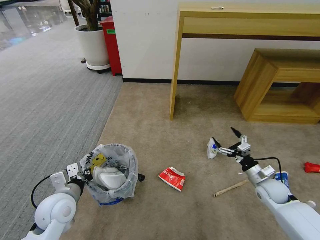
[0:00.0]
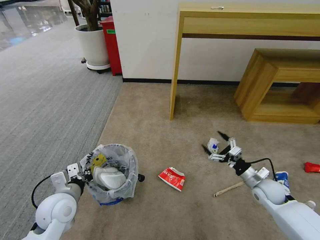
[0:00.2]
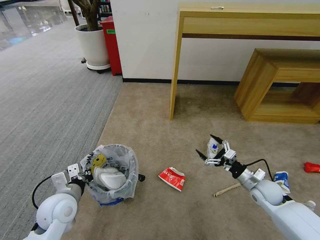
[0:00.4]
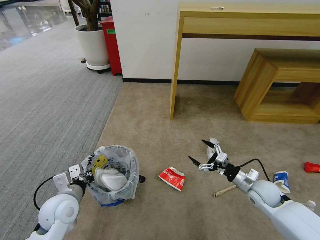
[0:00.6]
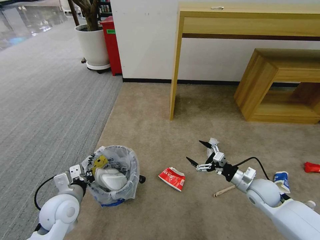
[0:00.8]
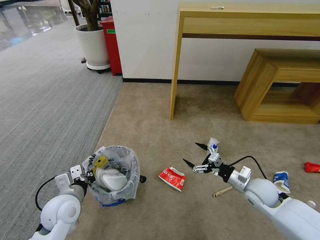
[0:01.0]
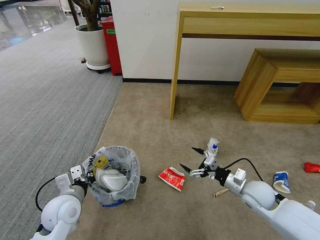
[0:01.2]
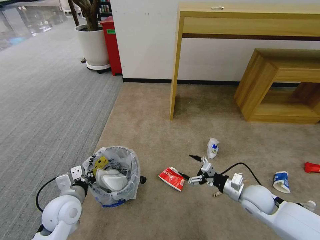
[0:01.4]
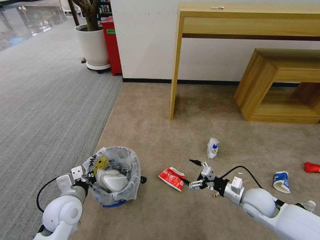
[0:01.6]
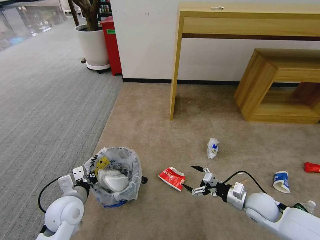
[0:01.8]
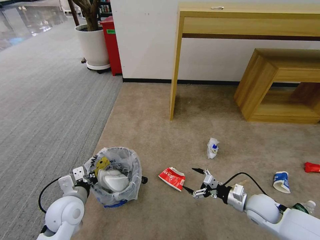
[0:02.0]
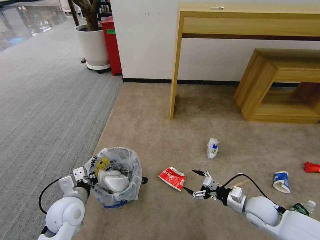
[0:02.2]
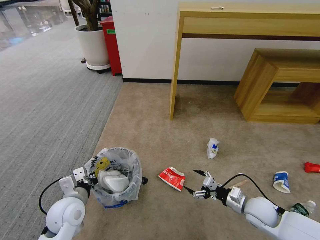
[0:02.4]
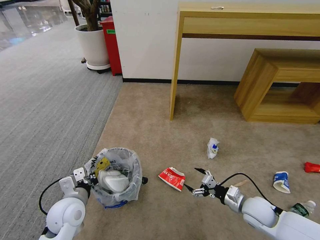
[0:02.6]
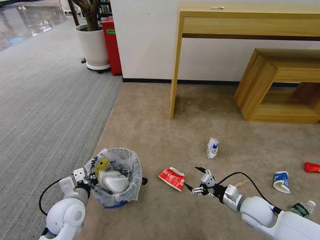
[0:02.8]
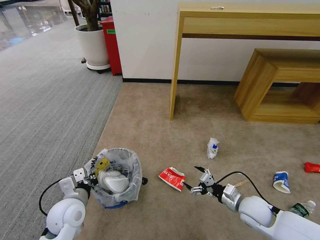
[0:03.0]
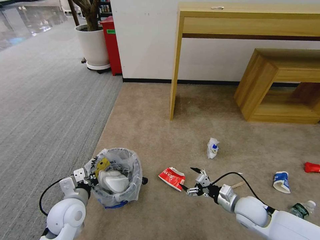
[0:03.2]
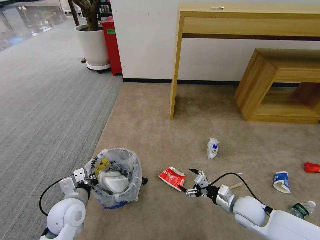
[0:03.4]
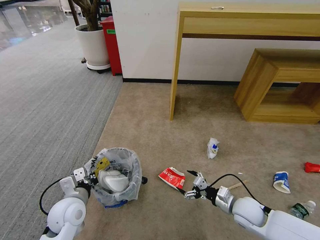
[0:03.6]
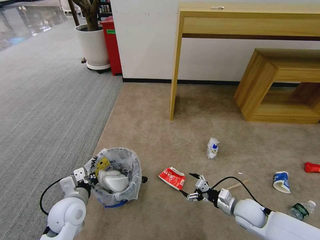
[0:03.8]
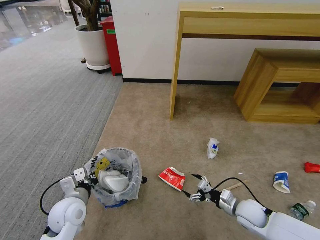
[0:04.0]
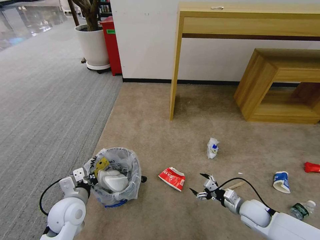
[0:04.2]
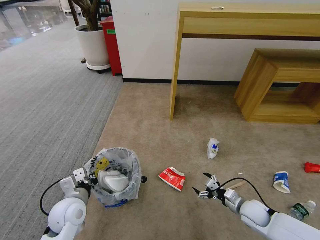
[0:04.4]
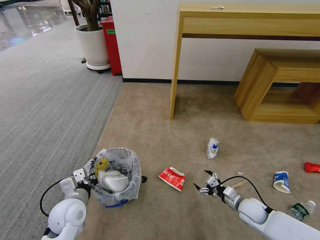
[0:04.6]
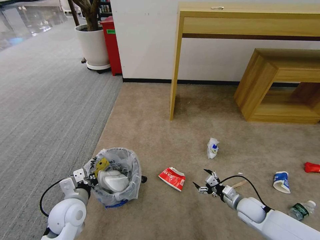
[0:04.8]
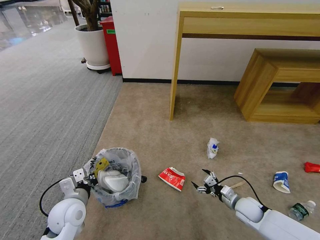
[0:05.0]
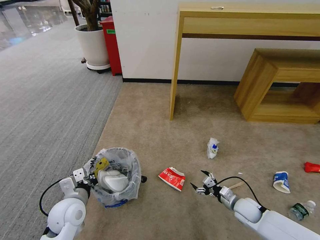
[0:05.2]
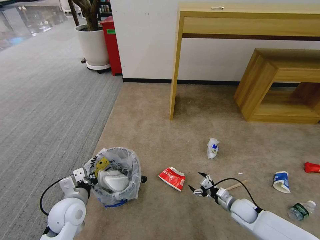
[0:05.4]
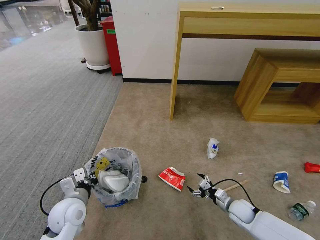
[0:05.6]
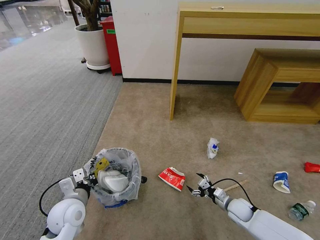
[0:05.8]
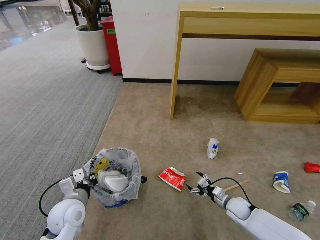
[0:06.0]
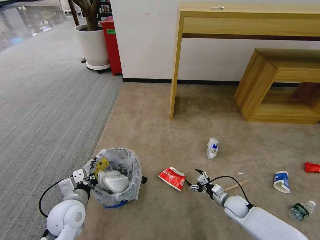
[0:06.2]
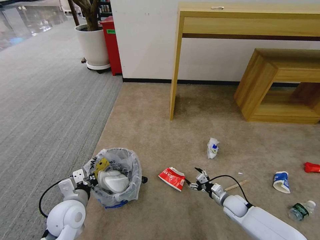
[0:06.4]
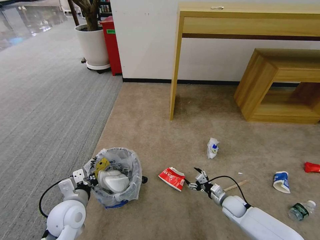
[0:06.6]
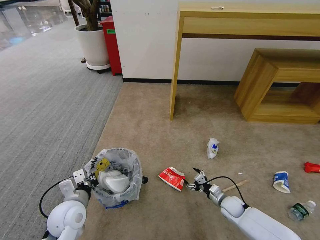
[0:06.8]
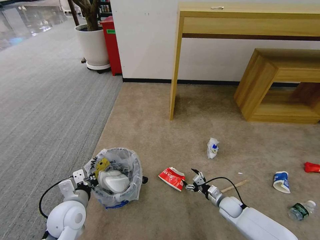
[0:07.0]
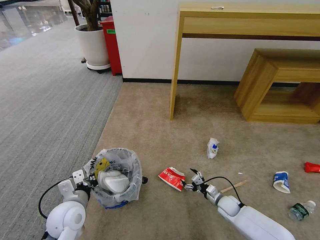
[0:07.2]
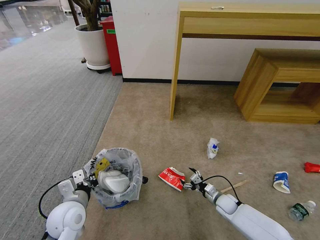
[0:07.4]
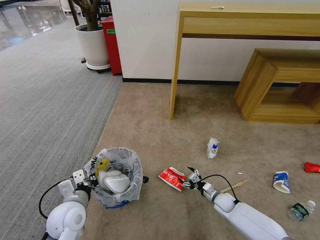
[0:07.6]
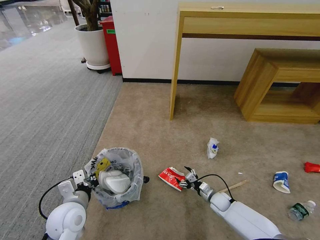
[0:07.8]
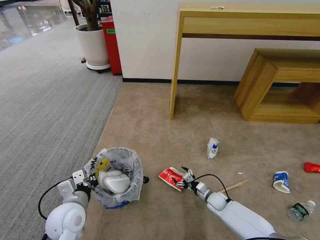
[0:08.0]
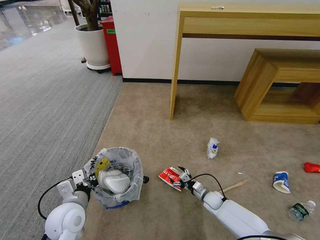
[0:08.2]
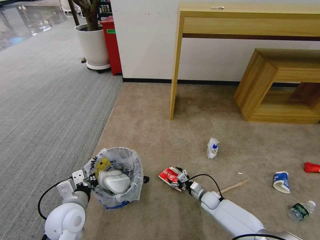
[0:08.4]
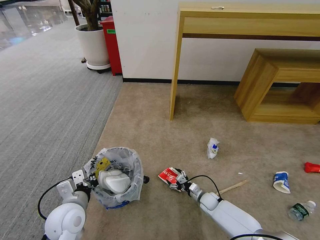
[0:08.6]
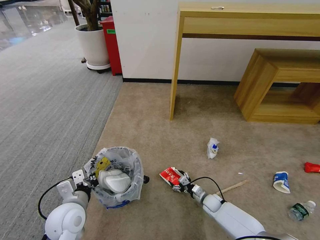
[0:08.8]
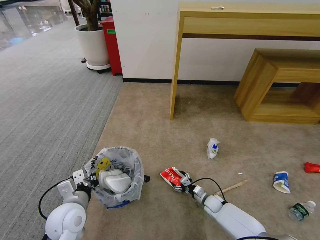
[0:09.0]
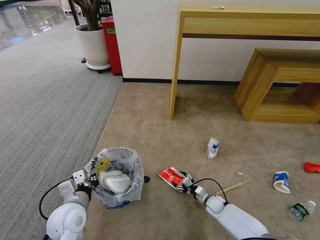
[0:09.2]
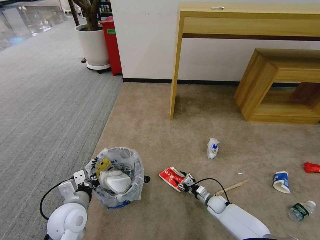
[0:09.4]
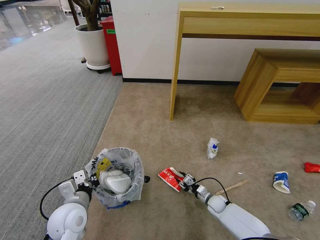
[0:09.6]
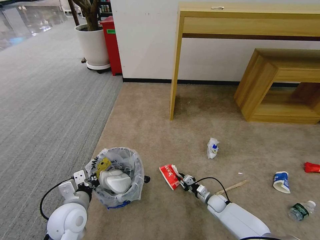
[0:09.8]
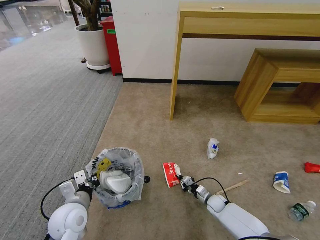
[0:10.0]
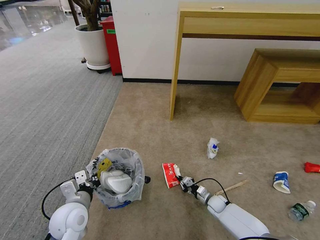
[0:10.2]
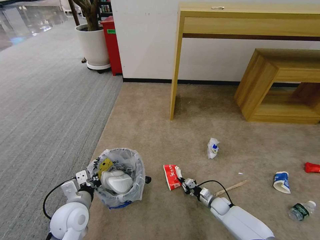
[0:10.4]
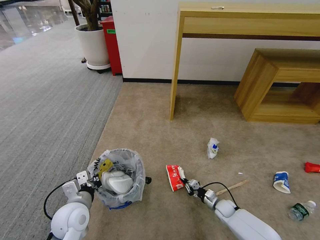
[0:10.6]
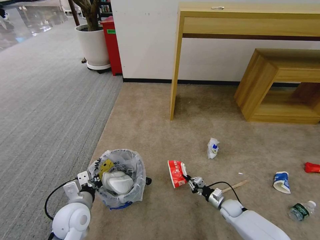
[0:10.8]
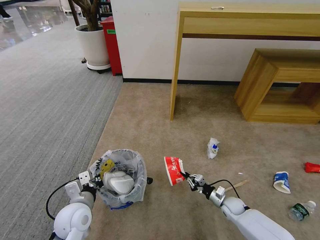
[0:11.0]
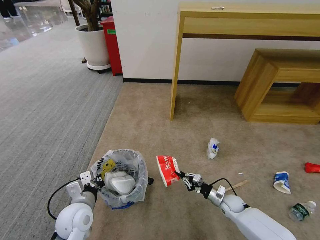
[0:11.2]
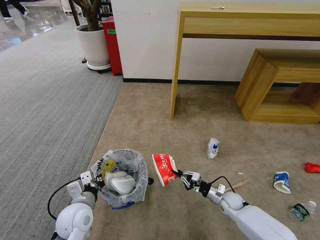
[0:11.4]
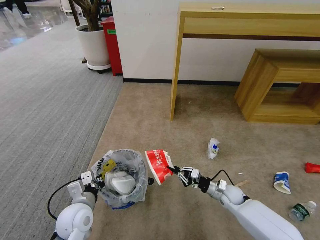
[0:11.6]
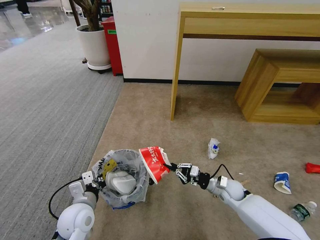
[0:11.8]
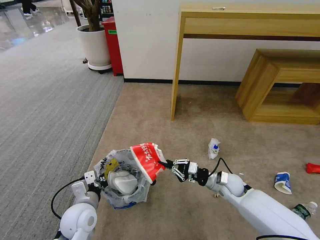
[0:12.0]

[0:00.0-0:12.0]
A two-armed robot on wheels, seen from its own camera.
Task of the whole recording: Pick up the trash bin and place the garbage on the floor into it.
0:00.0 to 0:01.6: The right gripper is displaced to the left and backward by some 10 cm.
0:01.6 to 0:03.0: The grippers stay close to where they were, moving slightly.
0:03.0 to 0:04.4: The right gripper shifts approximately 5 cm downward.
0:04.4 to 0:06.0: The right gripper goes roughly 5 cm downward.
0:06.0 to 0:07.6: The right gripper moves roughly 5 cm.
0:07.6 to 0:09.0: The right gripper shifts by about 5 cm.
0:09.0 to 0:10.4: The right gripper closes.
0:10.4 to 0:12.0: The right gripper travels upward by some 20 cm.

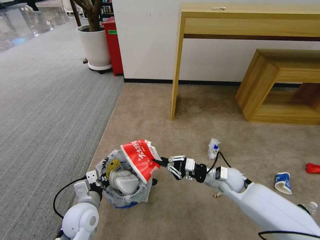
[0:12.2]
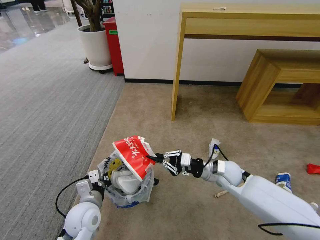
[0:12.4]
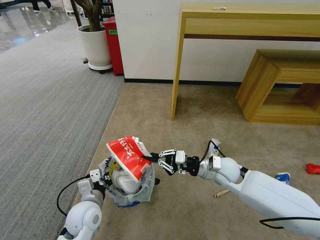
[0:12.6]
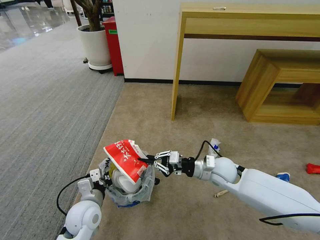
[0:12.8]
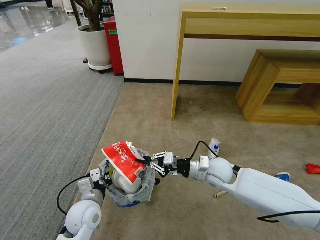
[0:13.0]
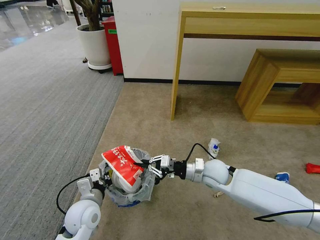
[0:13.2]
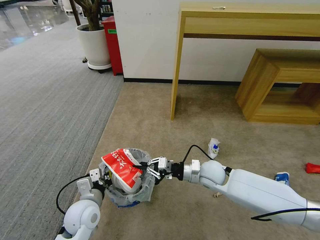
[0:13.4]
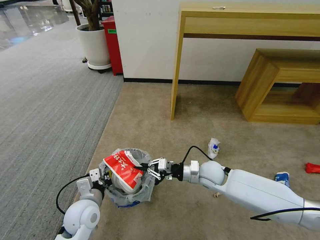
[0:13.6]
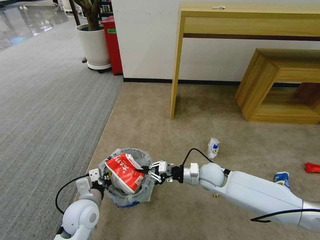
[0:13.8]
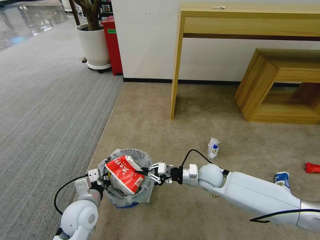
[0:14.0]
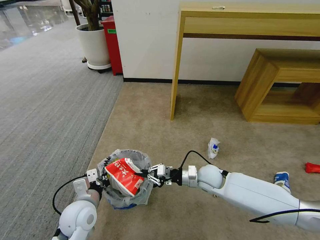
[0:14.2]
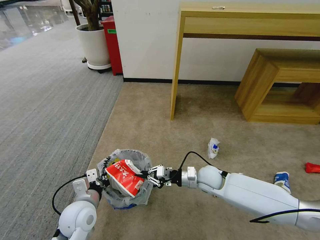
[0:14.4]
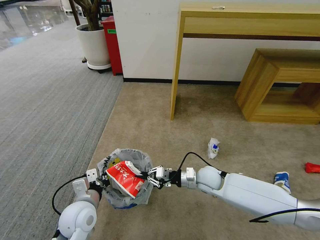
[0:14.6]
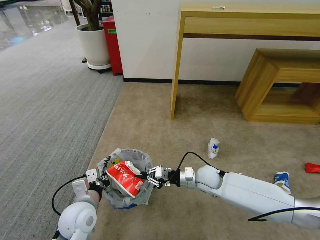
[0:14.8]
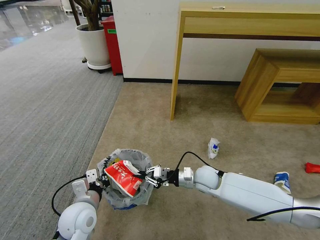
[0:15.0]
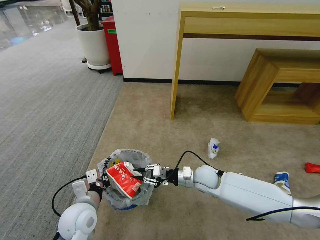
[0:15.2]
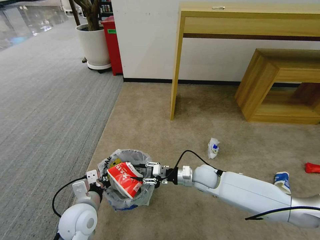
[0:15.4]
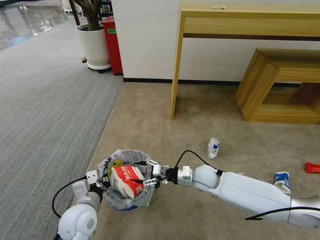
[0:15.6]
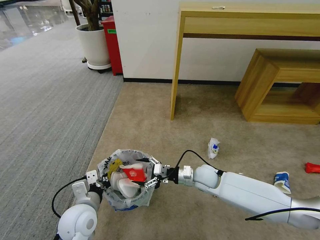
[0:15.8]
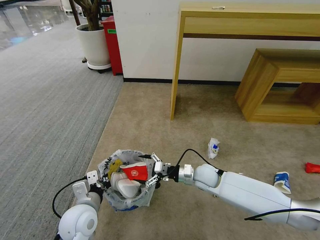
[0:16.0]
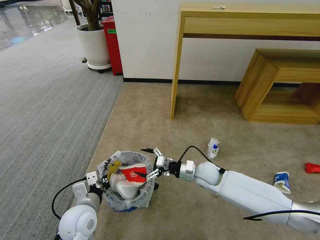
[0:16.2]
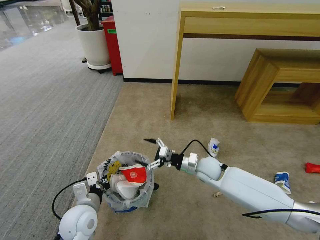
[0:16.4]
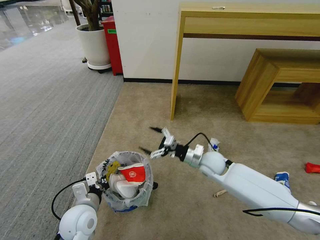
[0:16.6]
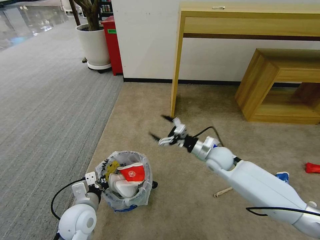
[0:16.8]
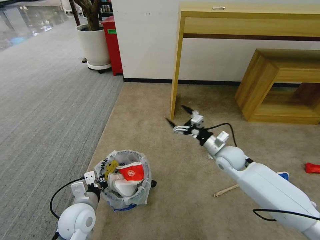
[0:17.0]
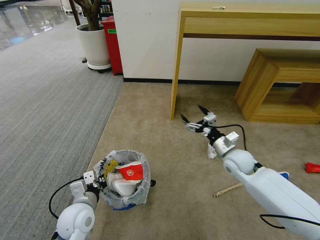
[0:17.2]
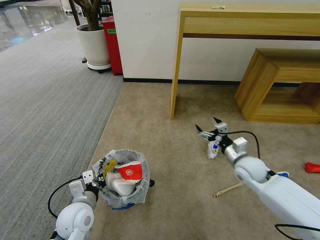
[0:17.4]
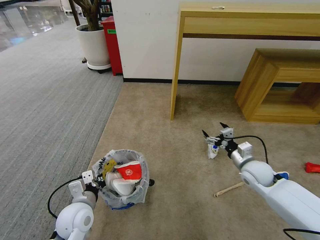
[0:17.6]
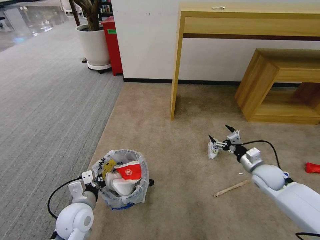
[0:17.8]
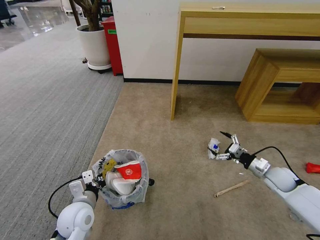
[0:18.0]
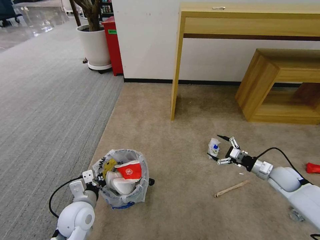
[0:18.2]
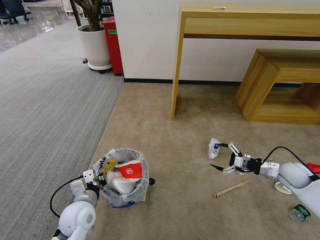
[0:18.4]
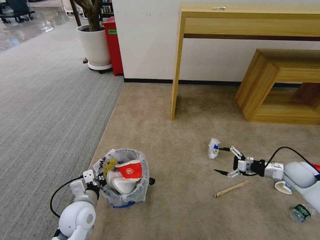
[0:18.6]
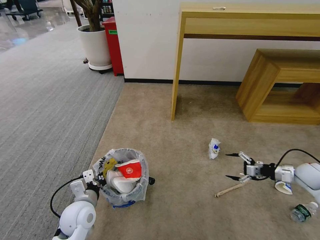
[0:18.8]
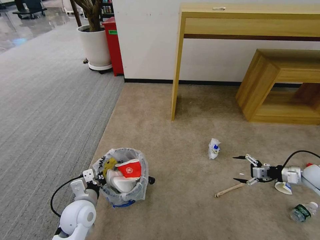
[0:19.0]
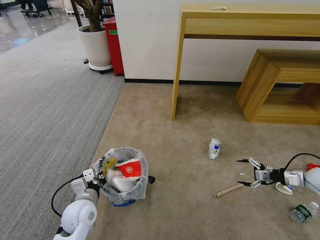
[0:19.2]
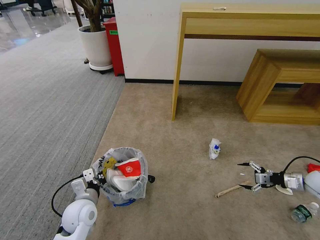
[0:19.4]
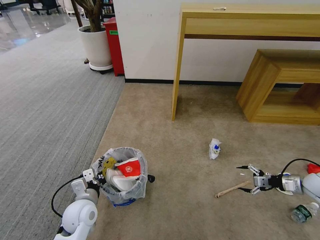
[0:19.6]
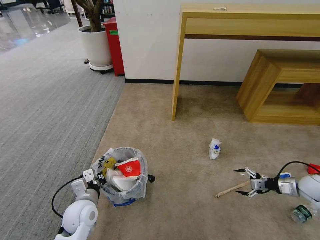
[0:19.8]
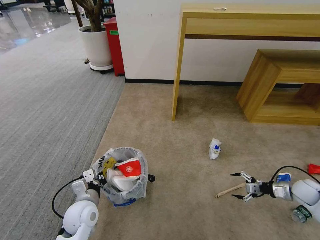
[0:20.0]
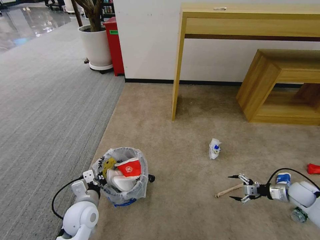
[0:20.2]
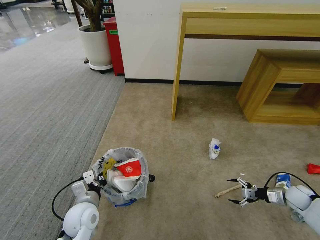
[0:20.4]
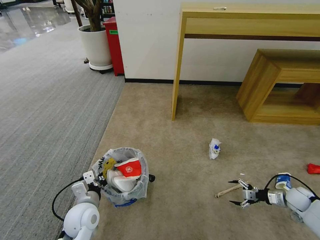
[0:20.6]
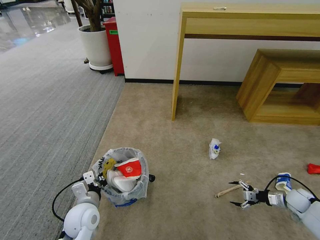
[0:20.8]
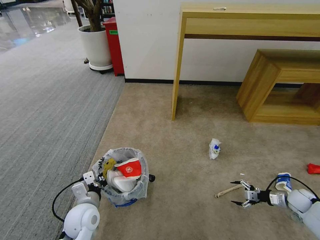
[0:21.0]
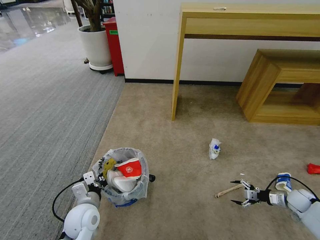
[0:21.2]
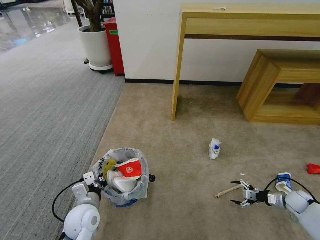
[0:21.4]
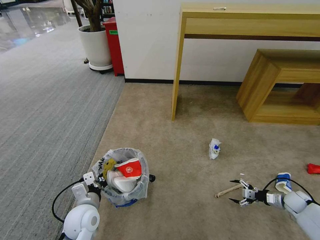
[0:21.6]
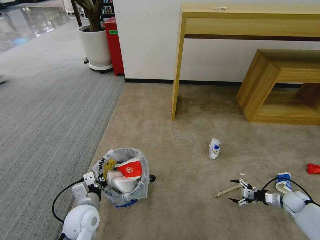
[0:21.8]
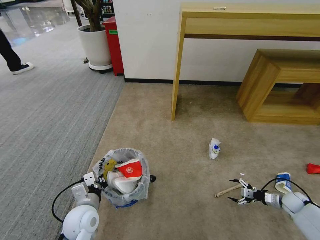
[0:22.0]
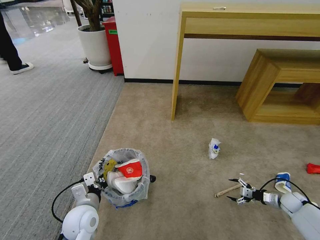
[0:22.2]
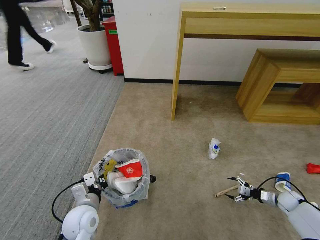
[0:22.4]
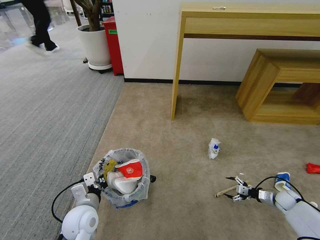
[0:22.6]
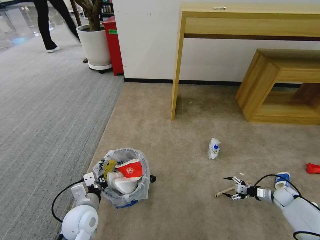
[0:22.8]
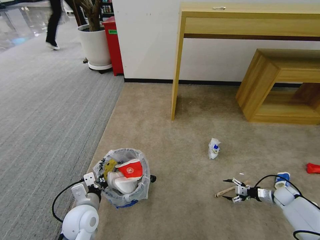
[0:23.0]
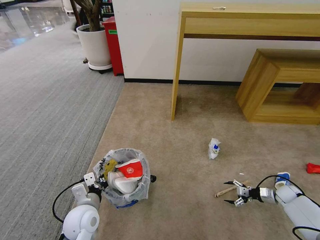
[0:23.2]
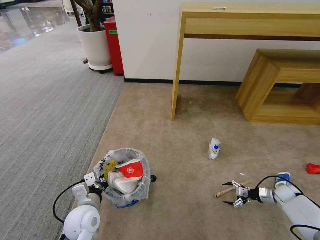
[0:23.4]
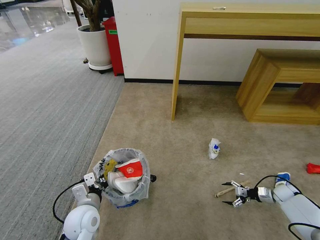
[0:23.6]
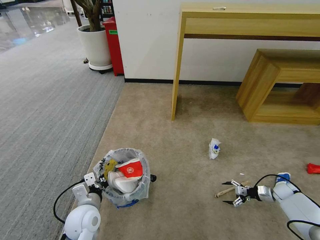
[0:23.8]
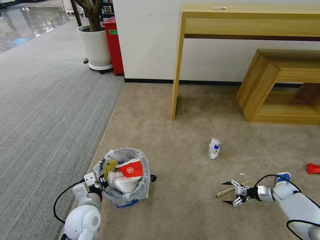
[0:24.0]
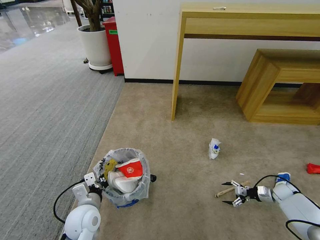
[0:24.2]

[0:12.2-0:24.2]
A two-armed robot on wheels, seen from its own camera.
Task of the whole recording: Pick up the trash bin and place the garbage on the floor into it.
0:12.2 to 0:13.8: The right gripper heads to the left, covering about 5 cm.
0:13.8 to 0:15.2: The grippers stay close to where they were, moving slightly.
0:15.2 to 0:16.6: The right gripper changes place by some 5 cm, and opens.
0:16.6 to 0:18.2: The right gripper is displaced to the right by approximately 25 cm.
0:18.2 to 0:19.8: The right gripper is displaced to the right by roughly 10 cm.
0:19.8 to 0:21.2: The right gripper travels downward by some 10 cm.
0:21.2 to 0:22.6: There are only small adjustments of the grippers.
0:22.6 to 0:24.2: The grippers move only a little.
